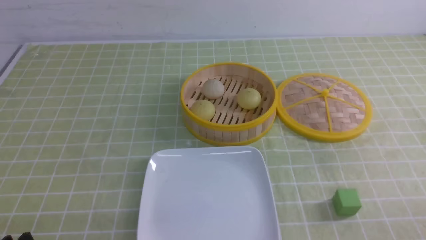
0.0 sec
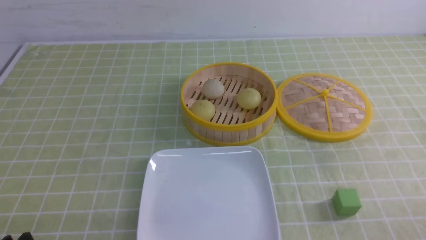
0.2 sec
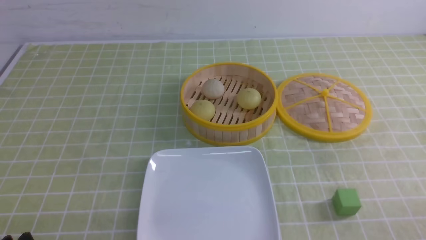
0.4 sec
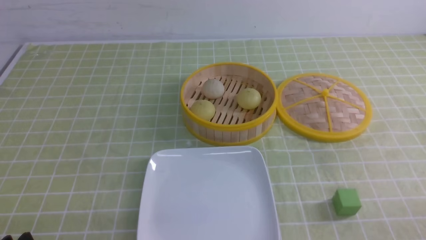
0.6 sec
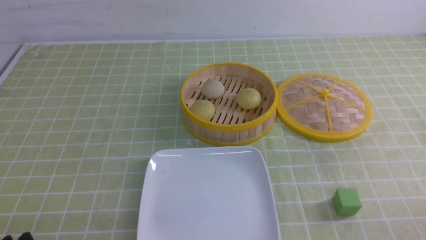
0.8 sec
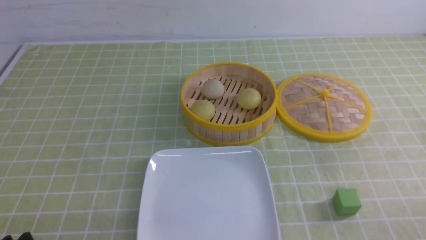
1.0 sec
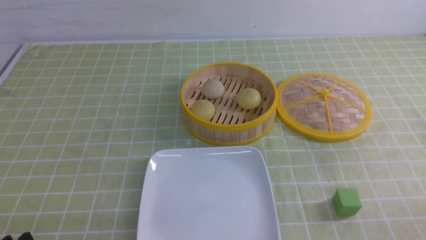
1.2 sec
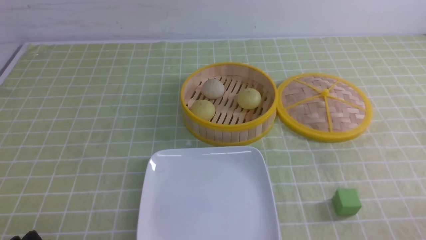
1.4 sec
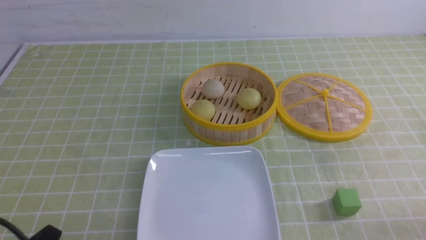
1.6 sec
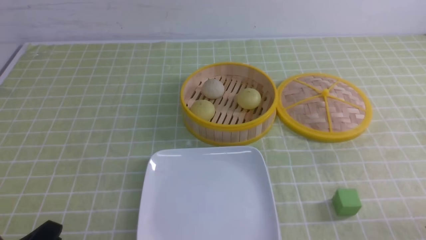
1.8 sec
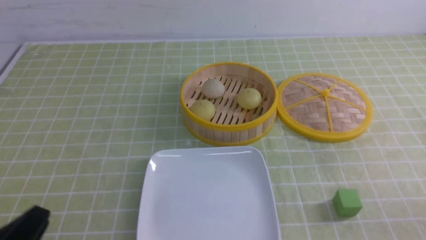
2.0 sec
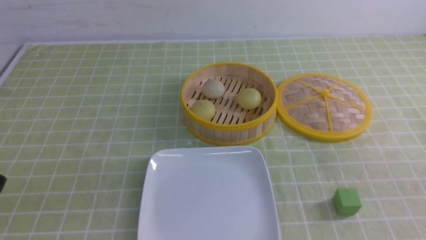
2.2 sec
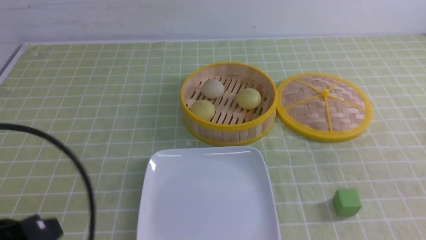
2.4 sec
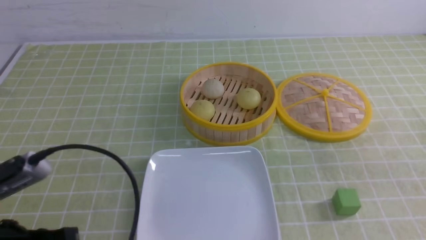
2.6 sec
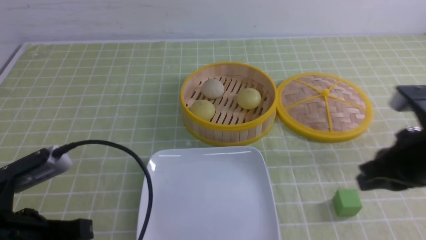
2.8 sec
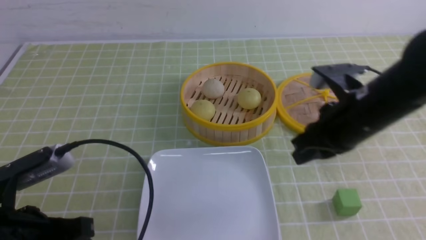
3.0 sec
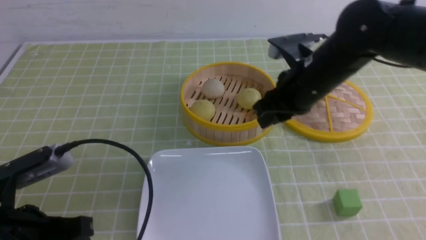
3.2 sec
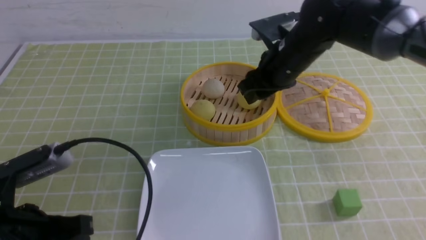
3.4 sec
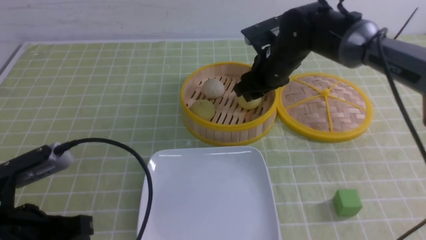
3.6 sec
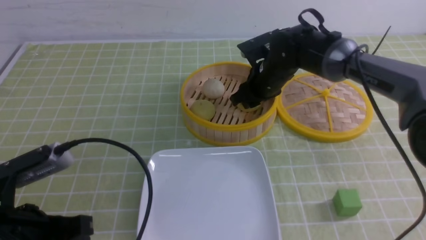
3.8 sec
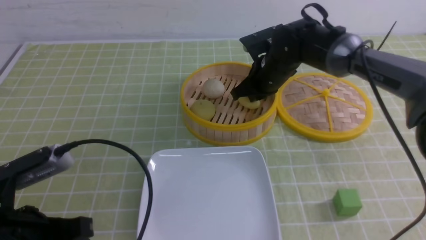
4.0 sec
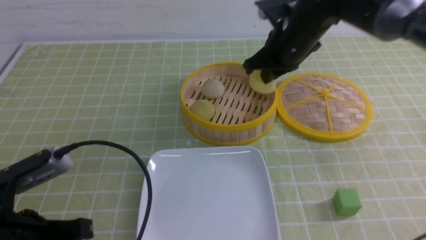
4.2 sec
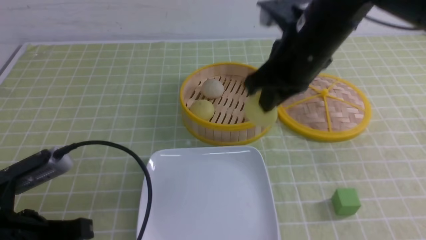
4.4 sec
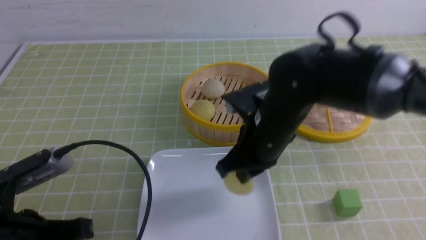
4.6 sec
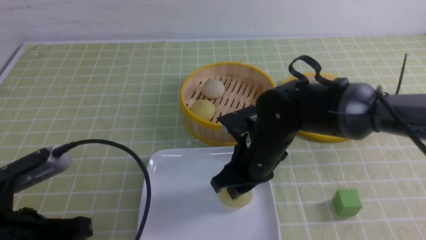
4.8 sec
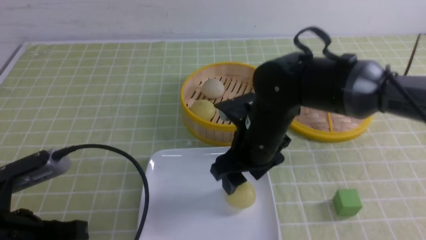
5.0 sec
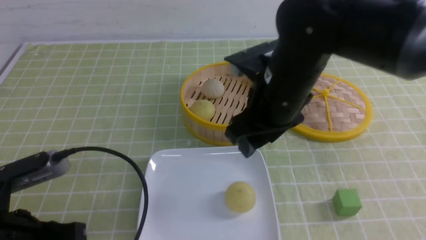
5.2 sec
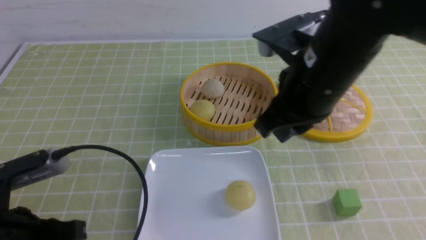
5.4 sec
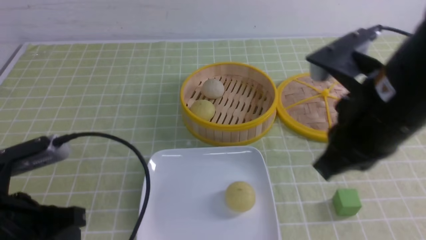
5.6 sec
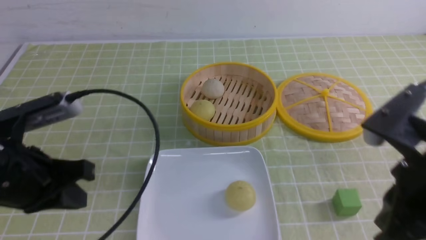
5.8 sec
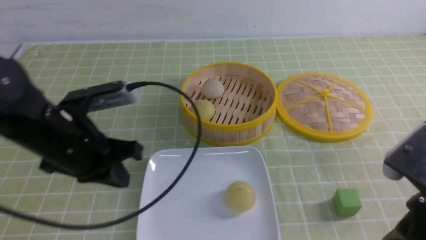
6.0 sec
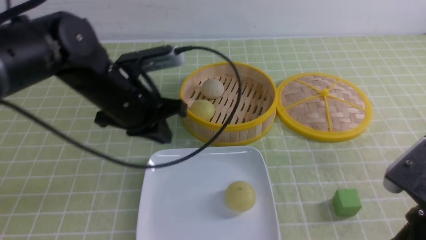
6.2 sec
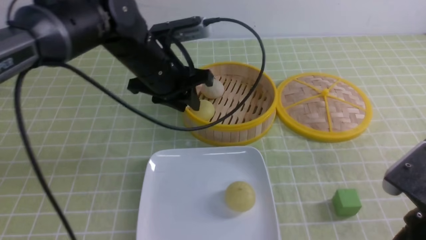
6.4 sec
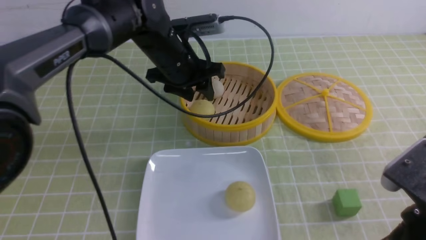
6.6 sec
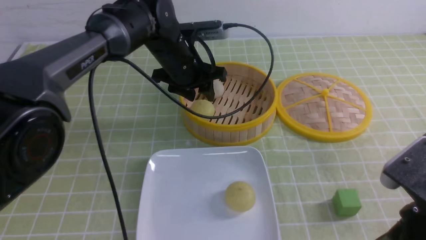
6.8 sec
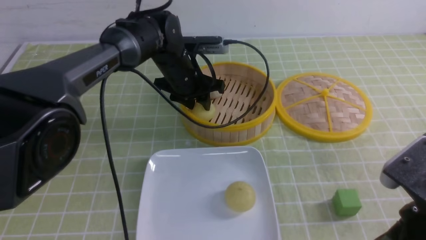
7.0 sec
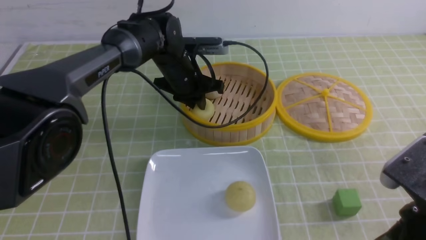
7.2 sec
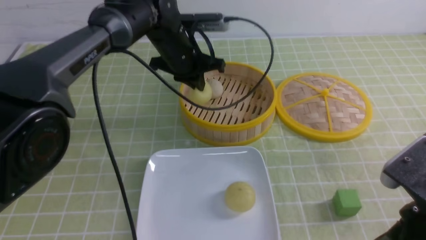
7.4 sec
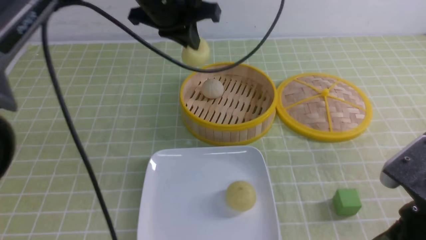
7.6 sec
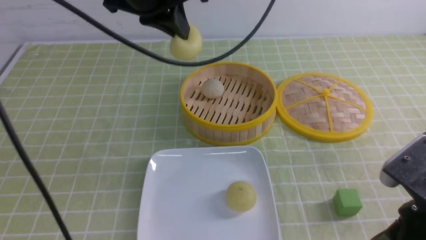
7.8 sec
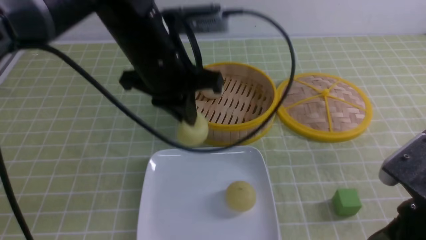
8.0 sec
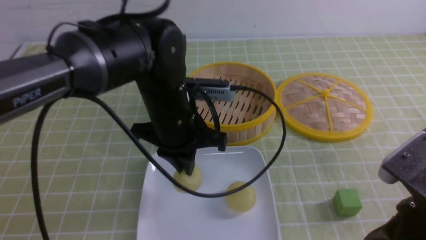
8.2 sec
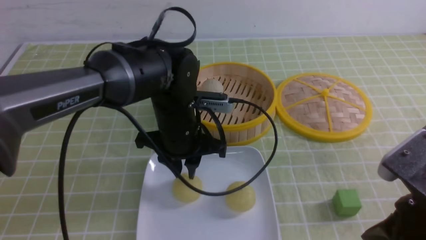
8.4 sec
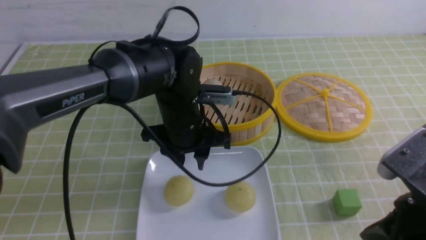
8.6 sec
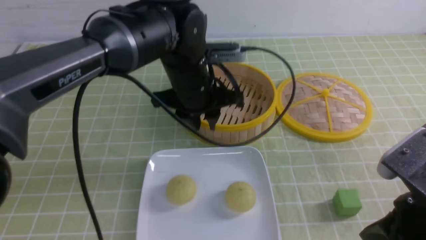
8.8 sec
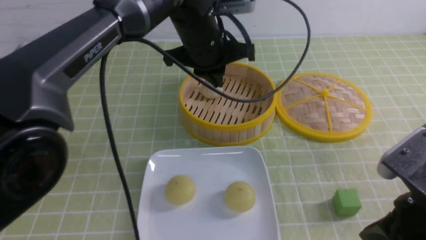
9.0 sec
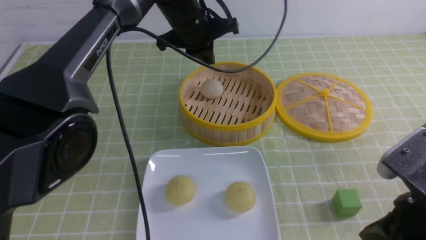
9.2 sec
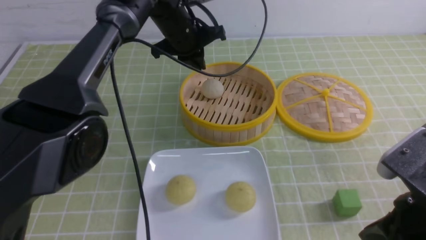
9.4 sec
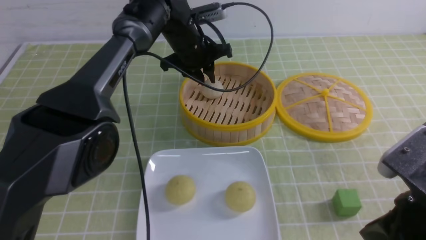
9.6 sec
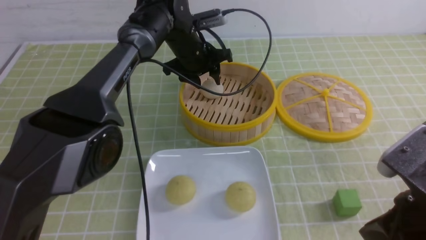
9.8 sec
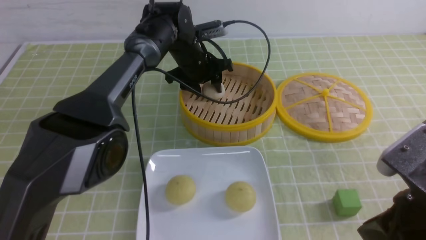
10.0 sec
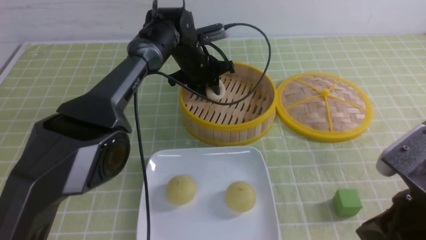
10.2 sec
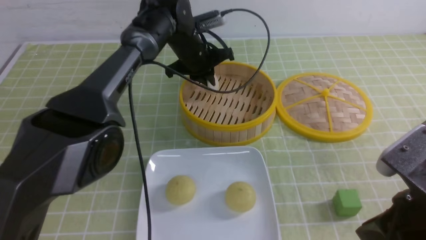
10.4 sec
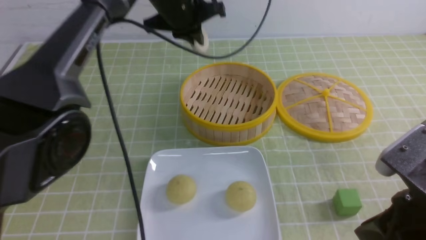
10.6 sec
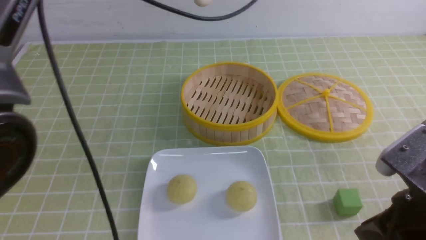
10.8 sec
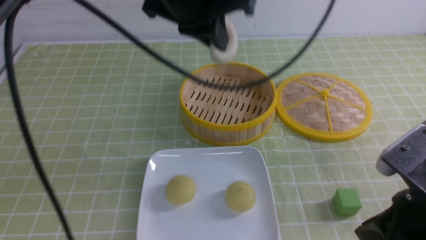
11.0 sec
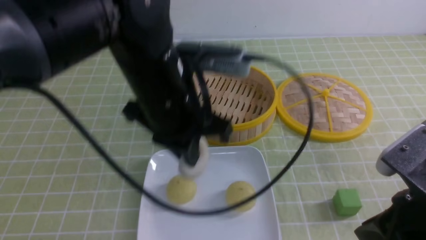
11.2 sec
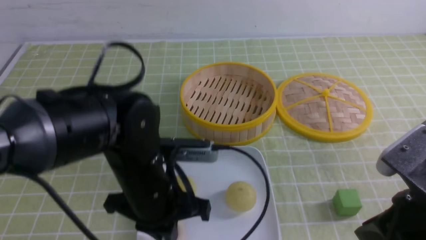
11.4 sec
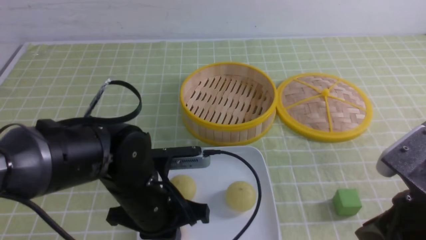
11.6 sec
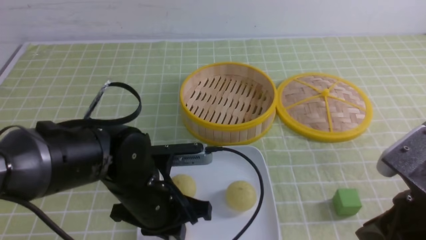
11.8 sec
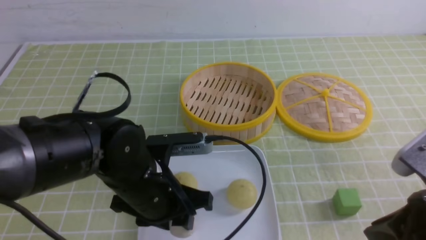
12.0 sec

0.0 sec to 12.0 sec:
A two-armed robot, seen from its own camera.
Step, 0.0 sec to 4.0 sec: use the right arm to grab the steamed stuffed bun that is closest to it.
Step, 4.2 sec to 4.8 sec: use the right arm to put the steamed stuffed bun into the plate.
Step, 5.0 sec to 7.2 sec: use the left arm to grab the steamed stuffed bun that is closest to it.
Step, 7.4 sec to 8.4 sec: use the left arm to put the steamed stuffed bun into the plate.
Step, 8.6 sec to 10.2 sec: use the left arm to grab the steamed stuffed bun that is closest to it.
1.6 sec to 3.0 sec: The right gripper moves forward, to the left and upward, about 30 cm. Meanwhile the left gripper travels forward and upward by roughly 10 cm, and closes its fingers.
3.0 sec to 4.4 sec: The right gripper heads to the left, covering about 10 cm, reaches some 15 cm forward, then returns, and opens, then closes again.
4.4 sec to 6.0 sec: The right gripper shifts some 25 cm backward and to the right, and opens, then closes again. The left gripper is displaced forward by roughly 15 cm.
6.0 sec to 7.6 sec: The left gripper moves forward, to the right and upward, approximately 20 cm, and opens and closes again.
7.6 sec to 9.0 sec: The left gripper moves downward and to the right, about 10 cm, and opens, then closes once more.
9.0 sec to 10.4 sec: The left gripper goes some 10 cm forward, and opens, then closes once more.
10.4 sec to 12.0 sec: The left gripper goes approximately 30 cm backward, and opens.

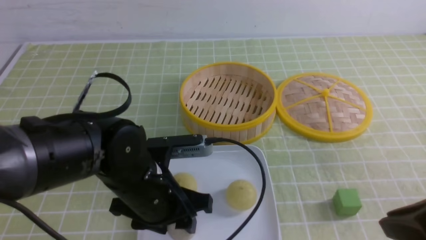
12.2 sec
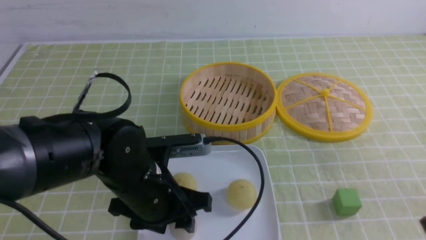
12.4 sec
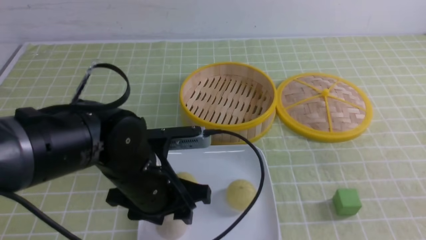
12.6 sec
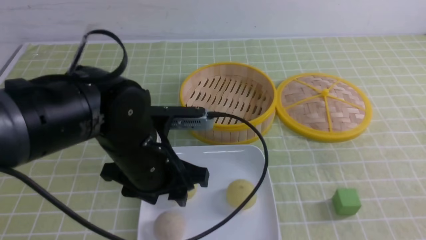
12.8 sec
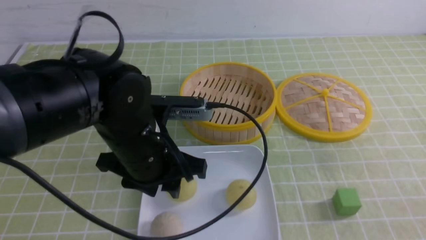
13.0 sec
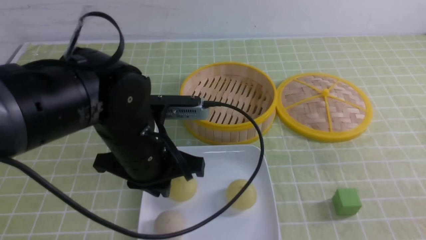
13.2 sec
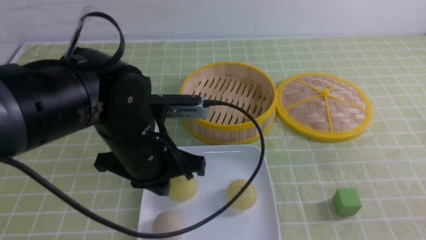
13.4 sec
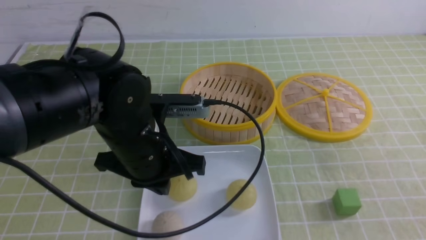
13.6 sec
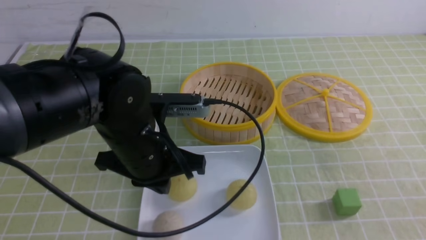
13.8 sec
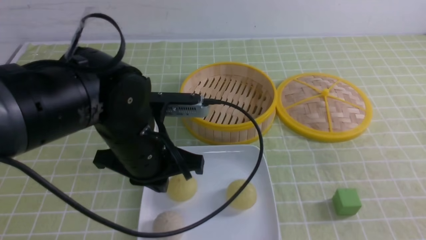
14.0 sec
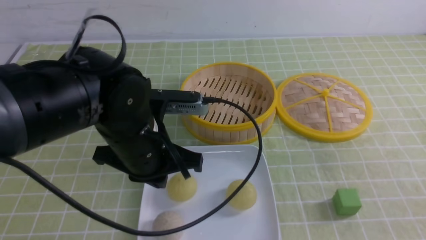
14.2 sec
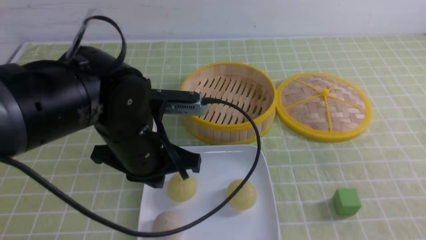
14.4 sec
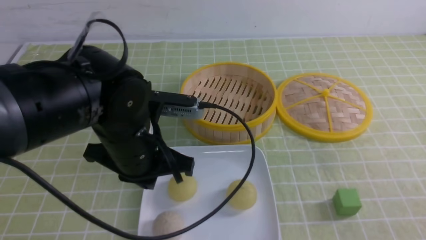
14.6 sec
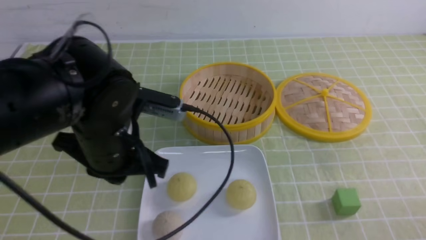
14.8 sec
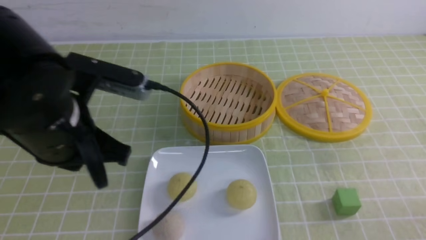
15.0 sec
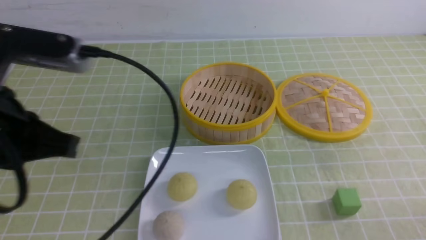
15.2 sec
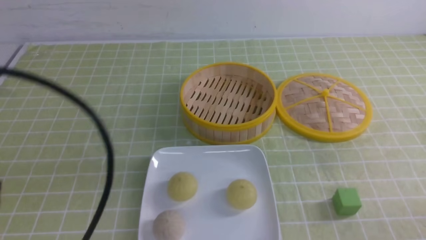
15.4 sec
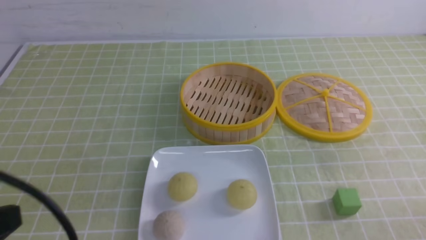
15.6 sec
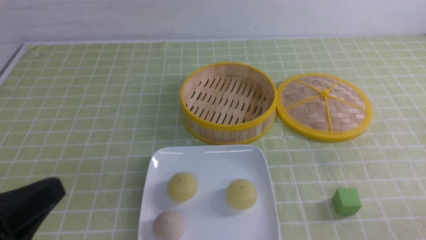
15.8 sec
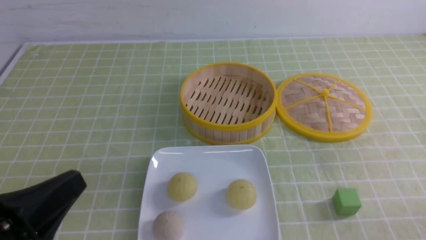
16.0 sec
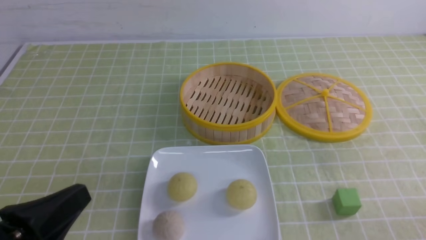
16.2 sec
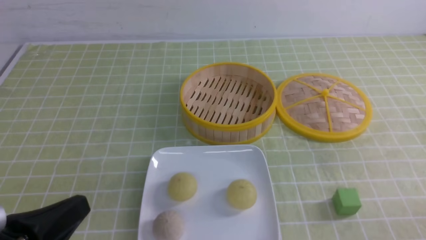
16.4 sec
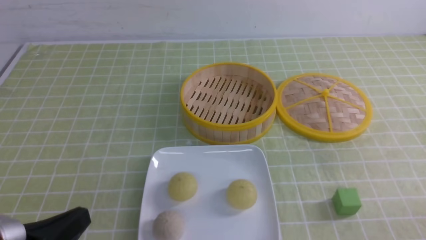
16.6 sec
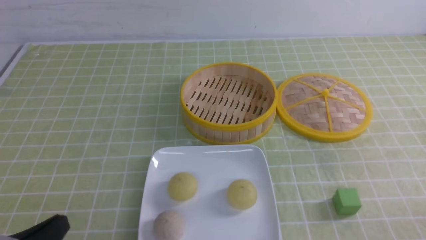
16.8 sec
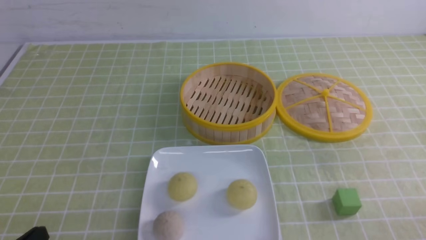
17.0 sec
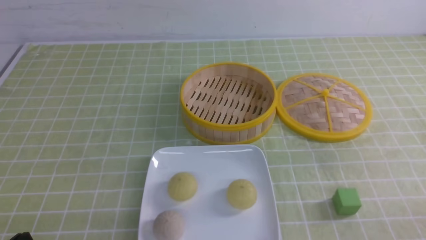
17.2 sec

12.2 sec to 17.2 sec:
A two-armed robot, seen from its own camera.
12.2 sec to 13.8 sec: The right gripper closes up, while the left gripper is displaced upward by some 5 cm, and closes up.
13.8 sec to 15.6 sec: The left gripper heads backward, to the left and upward, covering approximately 25 cm. The right gripper is displaced downward by approximately 15 cm.
15.6 sec to 17.2 sec: The left gripper goes some 15 cm downward.
